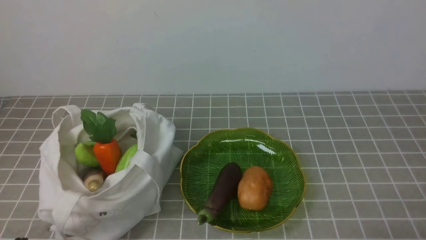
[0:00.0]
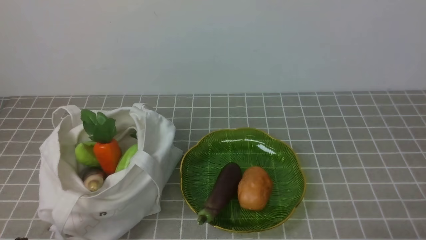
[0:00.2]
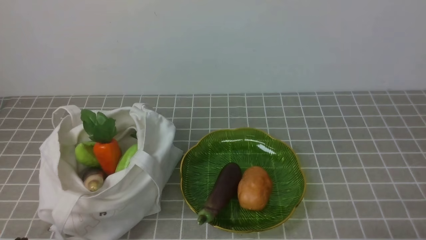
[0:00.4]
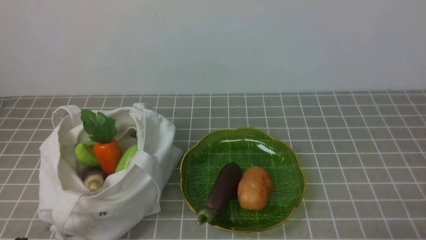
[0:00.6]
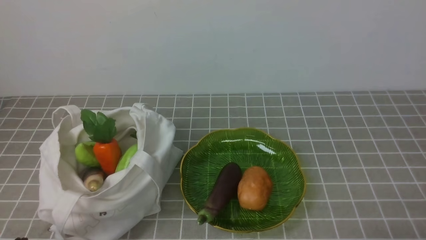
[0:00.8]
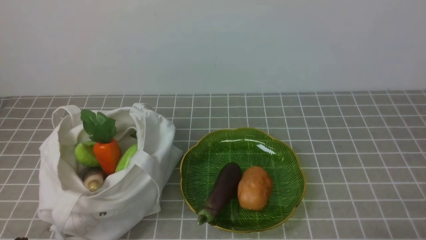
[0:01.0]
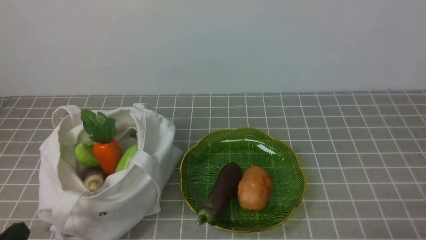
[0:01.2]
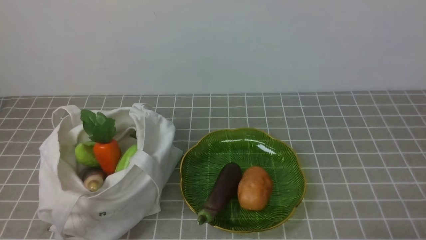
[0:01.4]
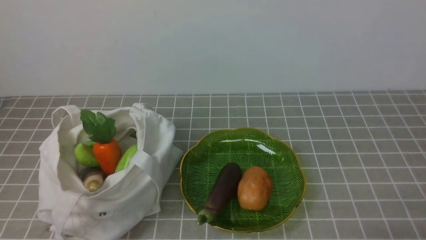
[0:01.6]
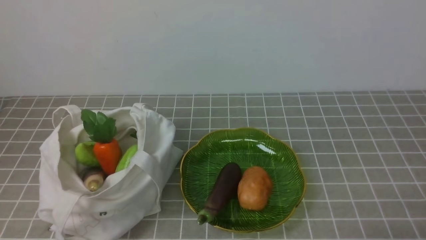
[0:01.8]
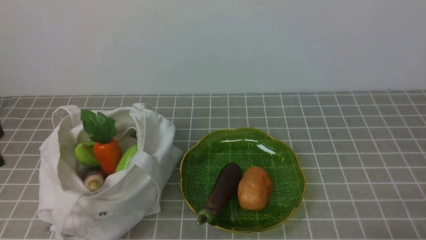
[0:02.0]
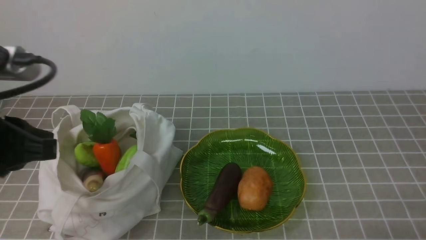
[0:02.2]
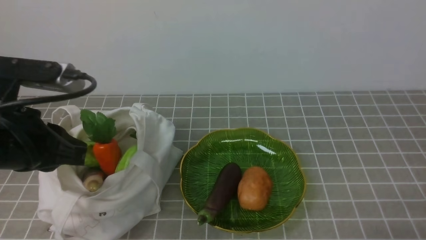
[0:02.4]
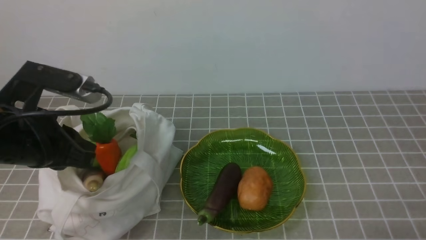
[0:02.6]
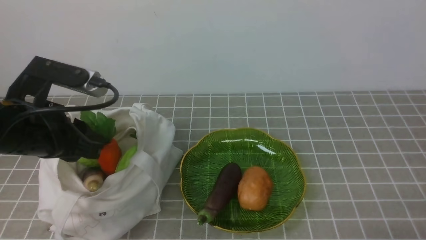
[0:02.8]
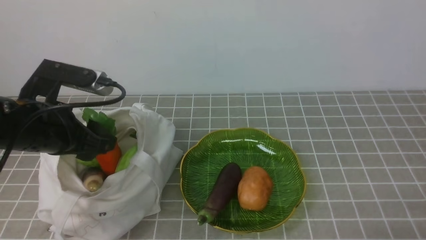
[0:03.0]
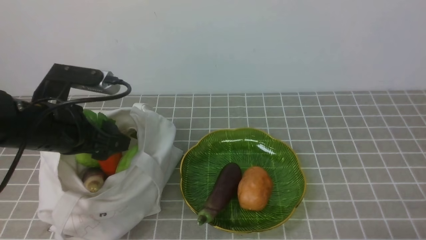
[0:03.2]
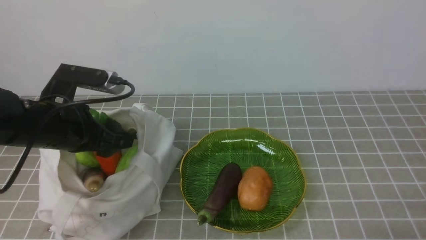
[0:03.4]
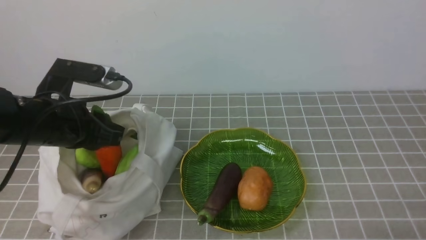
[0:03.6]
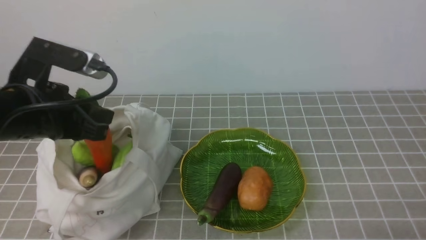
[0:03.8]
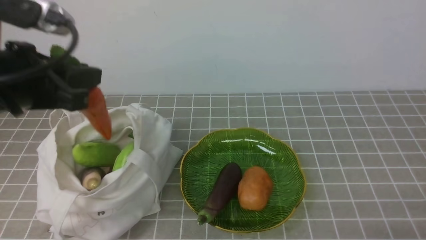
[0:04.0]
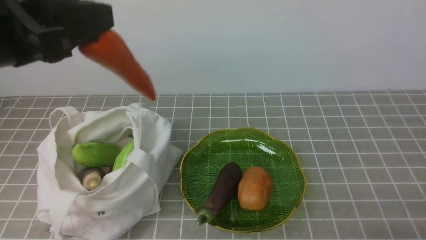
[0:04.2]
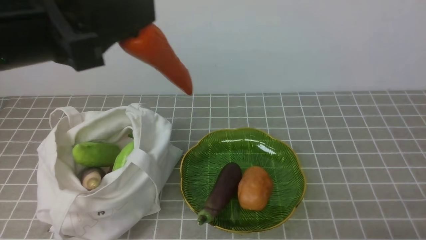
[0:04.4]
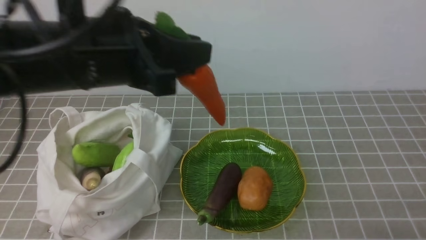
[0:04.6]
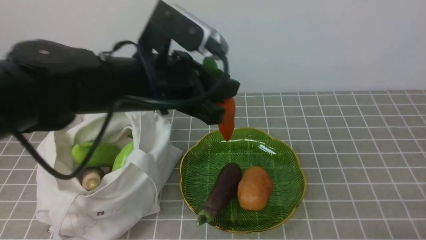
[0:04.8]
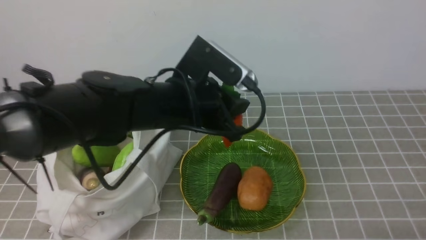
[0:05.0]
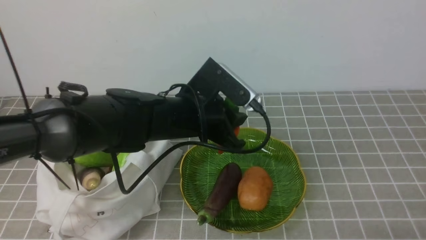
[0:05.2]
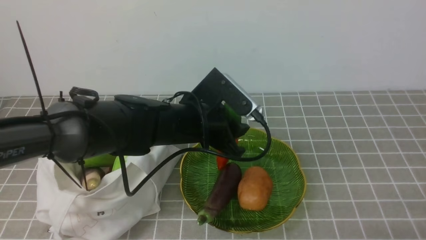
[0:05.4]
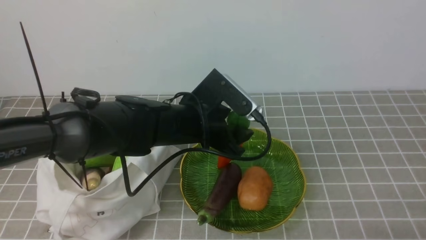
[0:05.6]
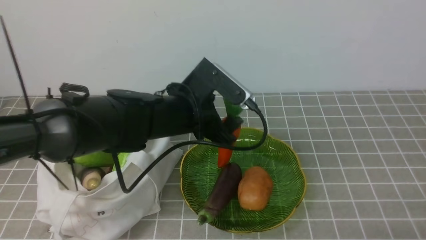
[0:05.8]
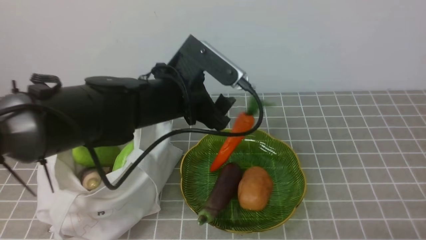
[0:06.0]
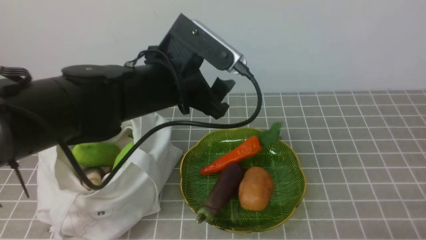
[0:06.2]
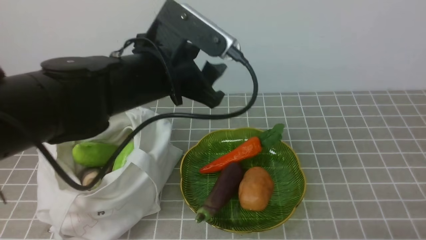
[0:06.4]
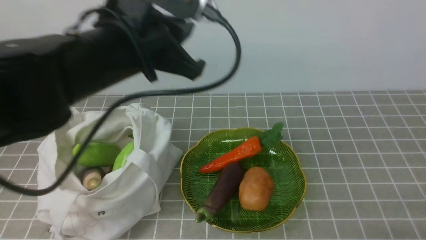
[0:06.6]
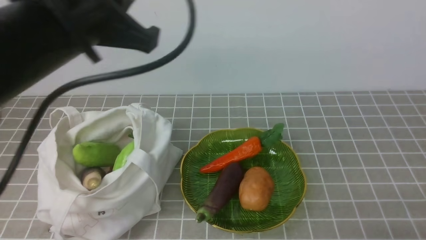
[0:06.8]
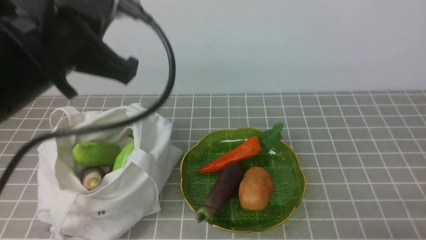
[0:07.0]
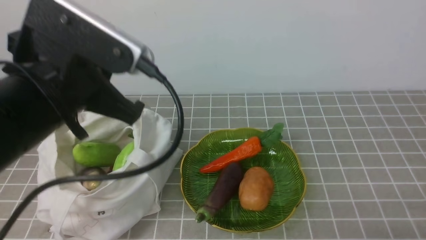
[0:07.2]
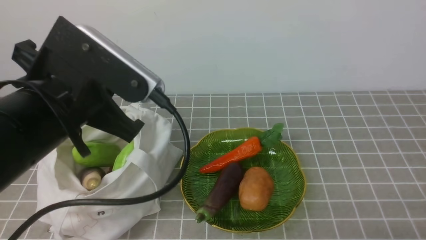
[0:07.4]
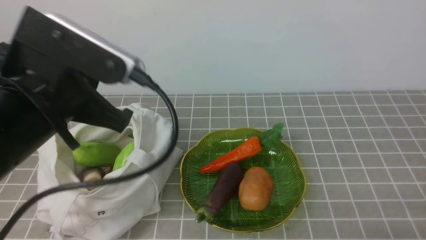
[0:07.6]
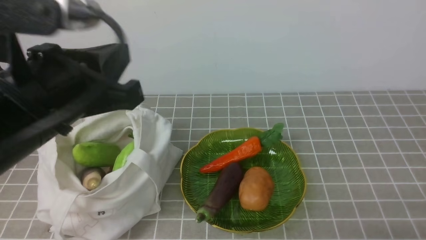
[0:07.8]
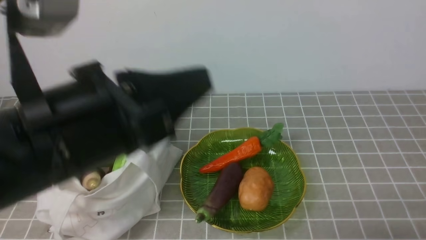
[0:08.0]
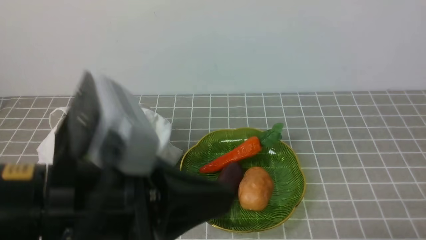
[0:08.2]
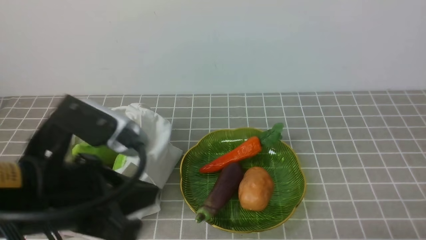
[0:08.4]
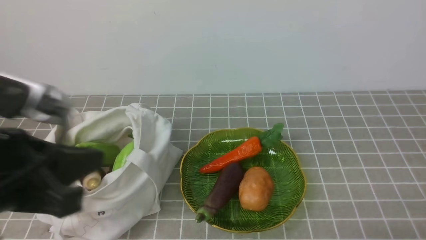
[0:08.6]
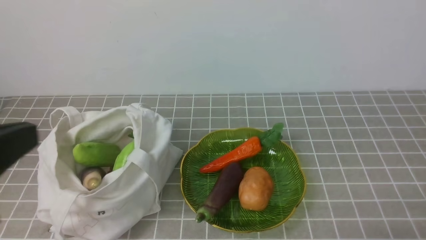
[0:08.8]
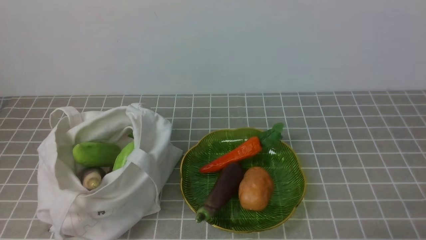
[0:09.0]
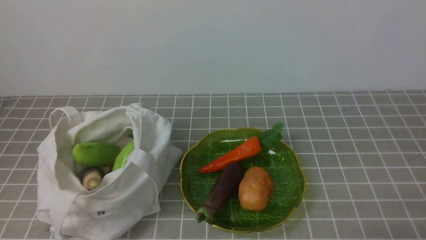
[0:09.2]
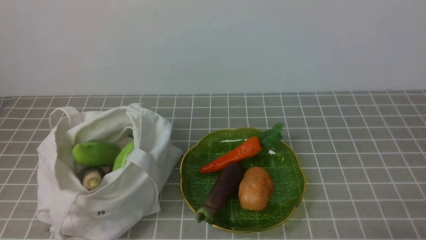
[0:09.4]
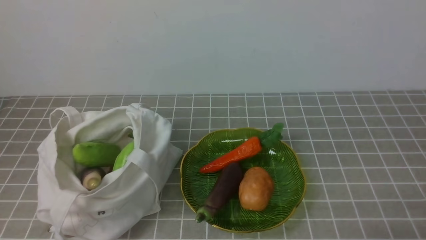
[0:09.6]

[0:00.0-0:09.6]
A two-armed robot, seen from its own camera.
Task of the whole recording: take vegetables from bag on grey coffee tablecloth place on plate.
Step, 0:00.0 to 0:03.4: Grasp the carrot with left gripper.
Step, 0:03.8 to 0:06.2: Place the carrot on the plate with left gripper.
0:01.6 to 0:03.2: The left gripper goes some 20 cm forward, and opens up.
0:03.2 to 0:04.8: The left gripper heads to the right and upward, covering about 15 cm, and closes up.
0:04.8 to 0:06.4: The left gripper reaches approximately 10 cm downward, then returns, and opens.
0:06.4 to 0:08.0: The left gripper goes some 15 cm backward, and closes its fingers.
0:08.0 to 0:09.6: The left gripper is displaced backward and to the left by approximately 15 cm.

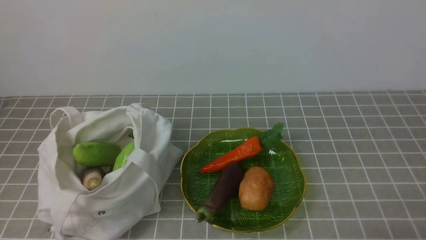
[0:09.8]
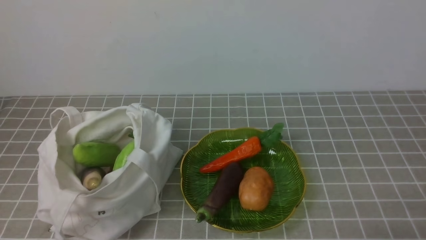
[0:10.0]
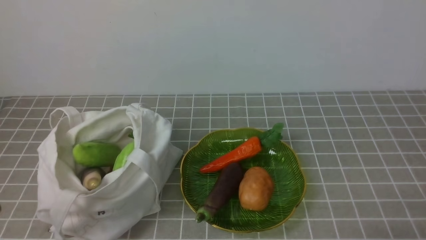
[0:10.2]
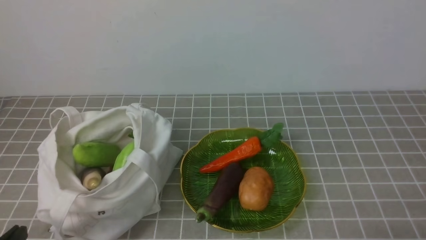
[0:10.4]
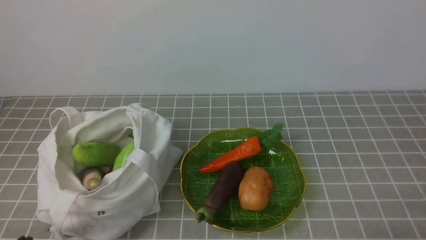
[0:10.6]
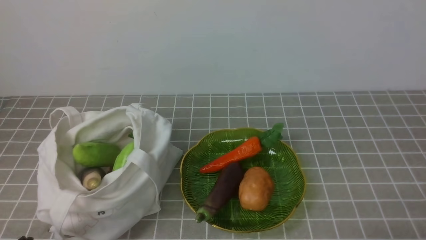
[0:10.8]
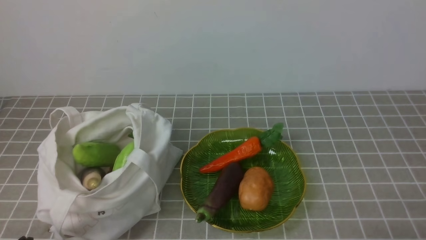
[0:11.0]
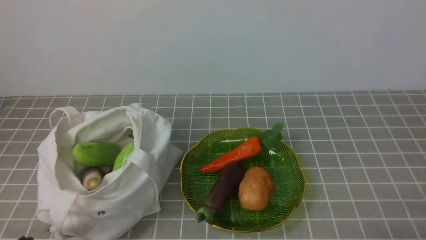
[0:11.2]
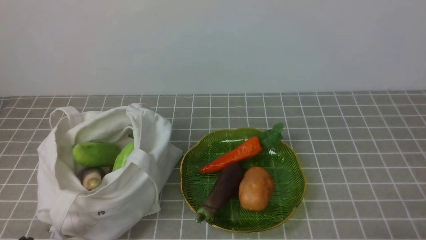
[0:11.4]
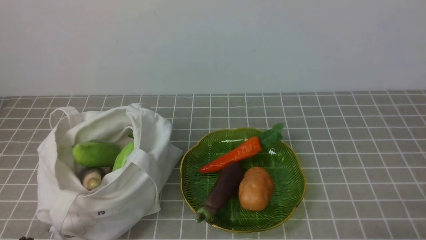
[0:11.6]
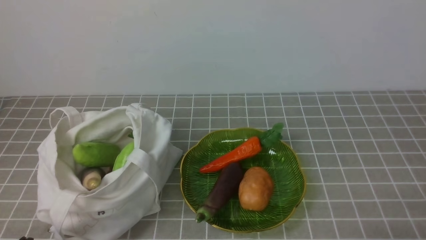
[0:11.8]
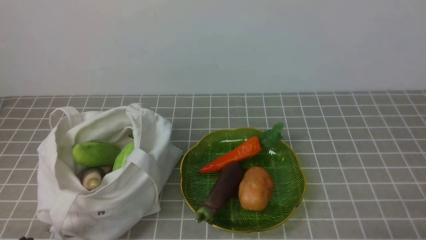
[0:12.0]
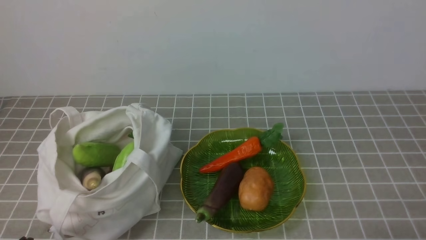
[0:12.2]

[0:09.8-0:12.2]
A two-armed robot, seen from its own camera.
Task of the whole recording: take vegetables from bag on grey coffee tablecloth place on plate.
0:11.0 to 0:12.2: Both grippers stay put.
